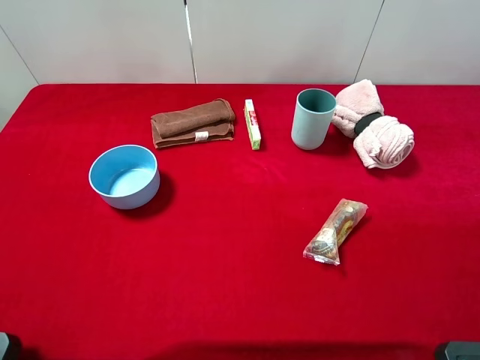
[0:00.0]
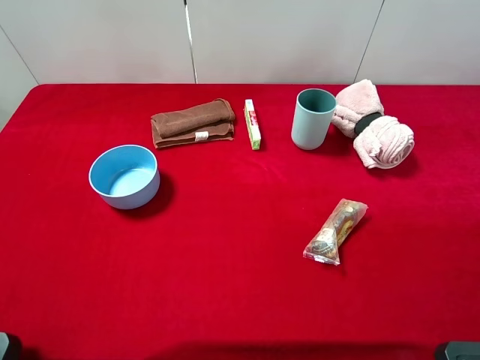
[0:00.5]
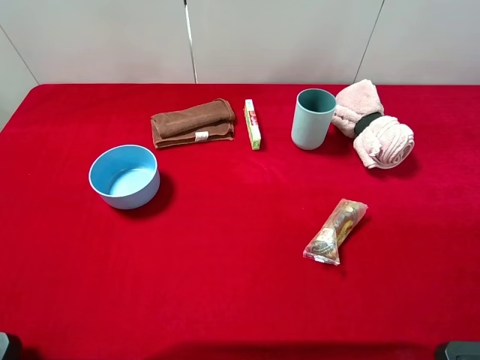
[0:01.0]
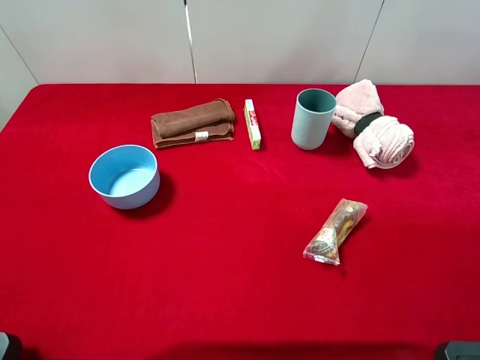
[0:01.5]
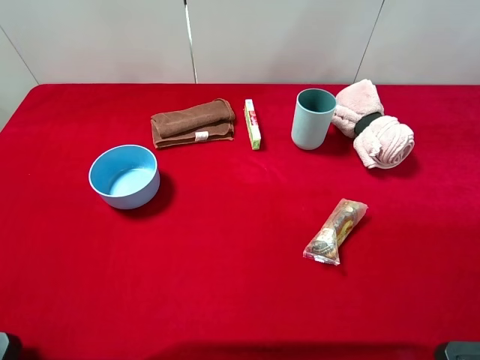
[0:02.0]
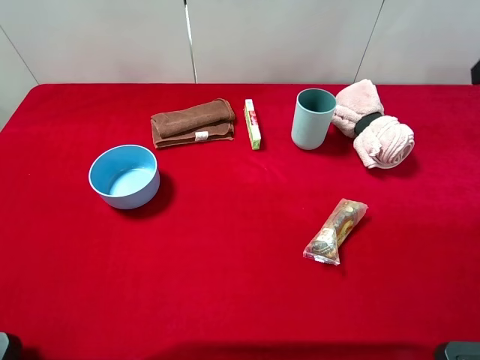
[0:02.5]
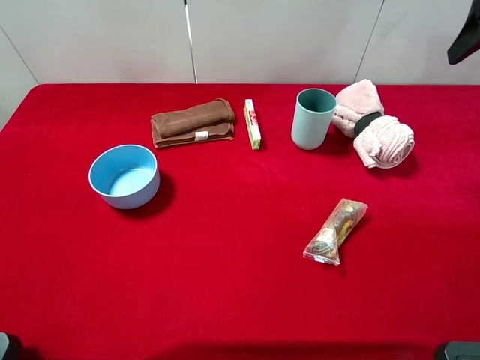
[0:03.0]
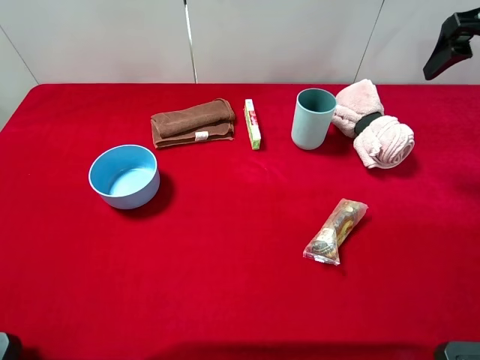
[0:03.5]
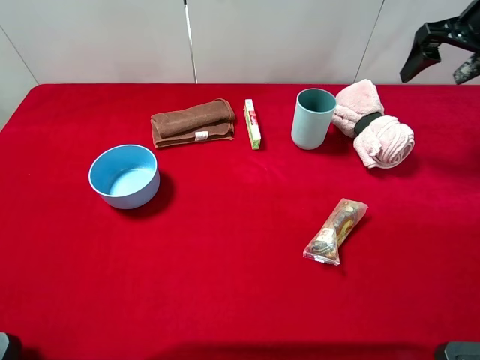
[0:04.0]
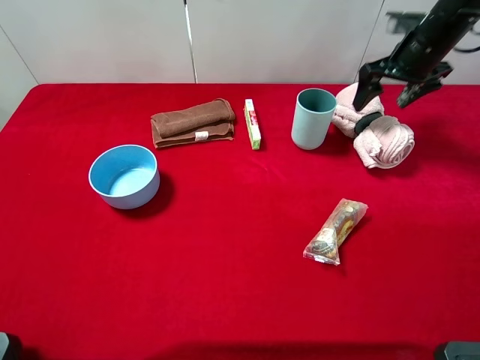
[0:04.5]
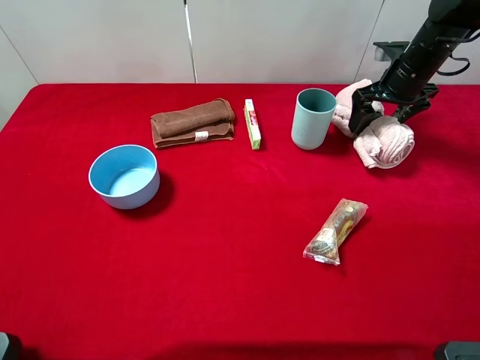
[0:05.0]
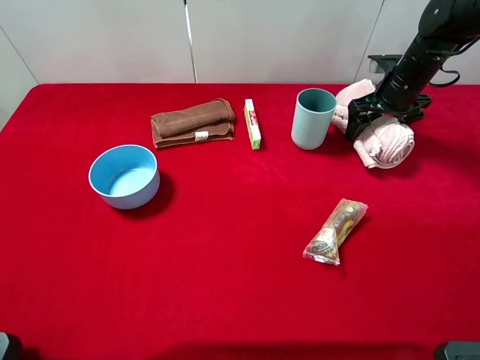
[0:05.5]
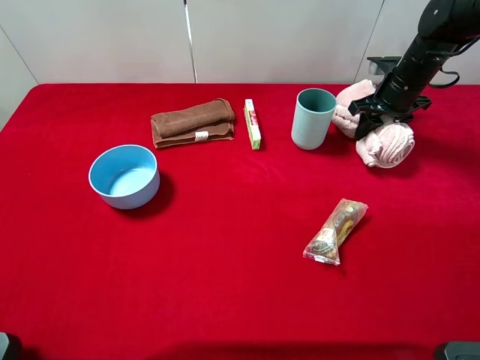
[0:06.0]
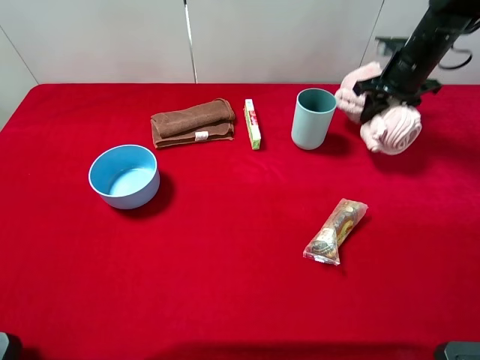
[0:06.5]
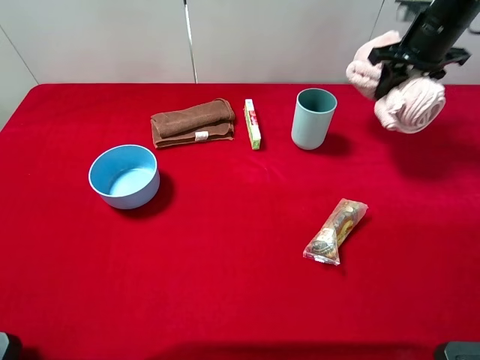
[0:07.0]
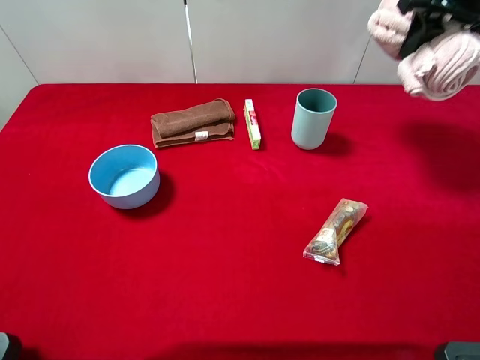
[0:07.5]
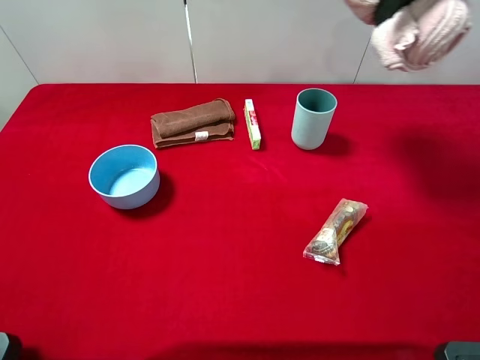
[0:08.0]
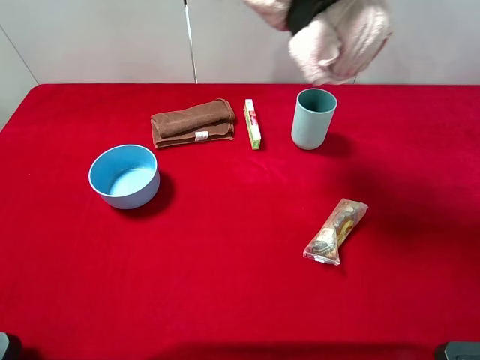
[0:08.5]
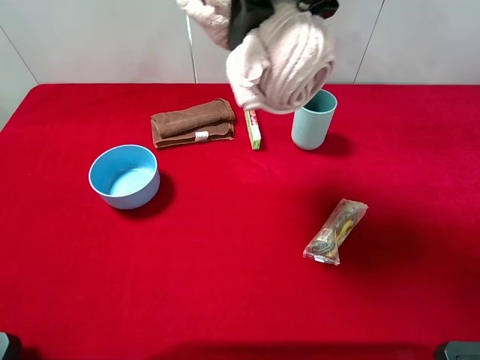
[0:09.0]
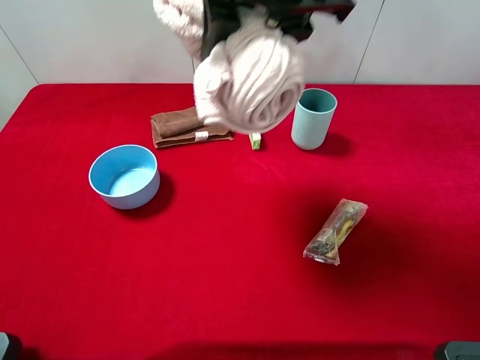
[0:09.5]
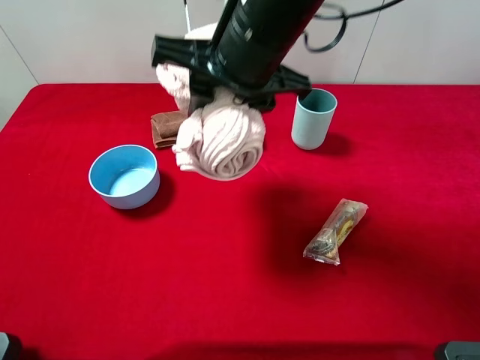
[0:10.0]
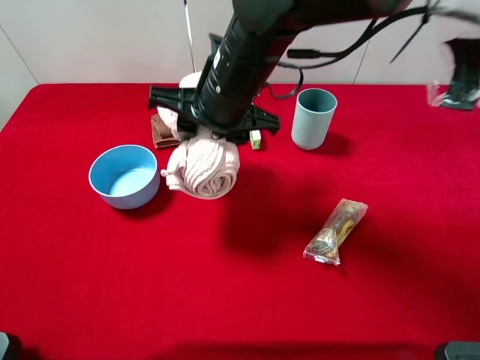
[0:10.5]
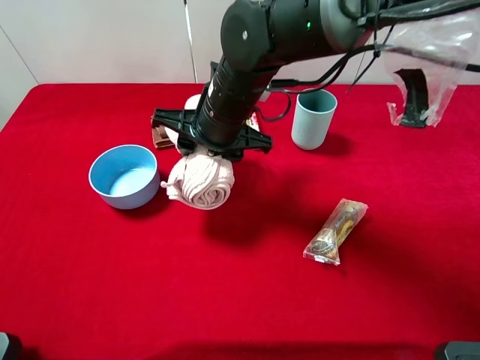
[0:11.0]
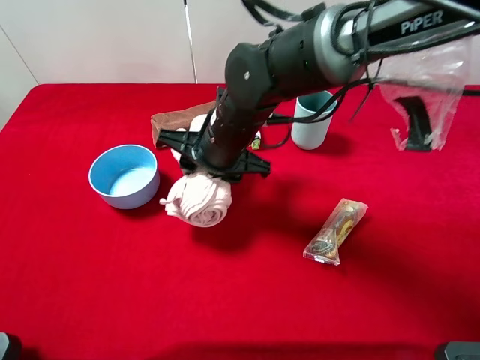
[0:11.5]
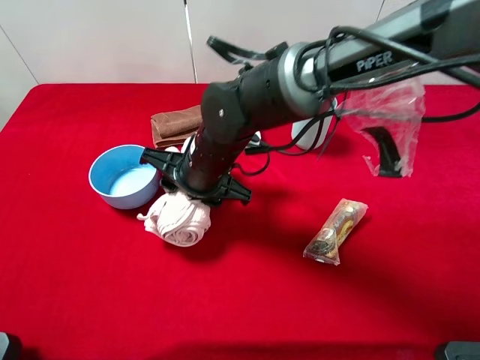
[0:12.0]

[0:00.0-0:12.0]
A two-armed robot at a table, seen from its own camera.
Task of the whole recording: the gripper move the object.
Step, 0.0 to 6.0 s: Grasp the pink towel with the right gripper.
2.0 to 4.0 s: The right gripper shifts approximately 25 cm forward.
4.0 to 6.0 s: The right gripper travels downward by some 15 cm, and closes.
6.0 to 8.0 s: The right gripper is displaced upward by about 25 cm.
8.0 to 10.0 s: The right gripper heads to the left, backward and downward, covering approximately 25 cm.
10.0 to 12.0 s: The right gripper is displaced downward by some 15 cm.

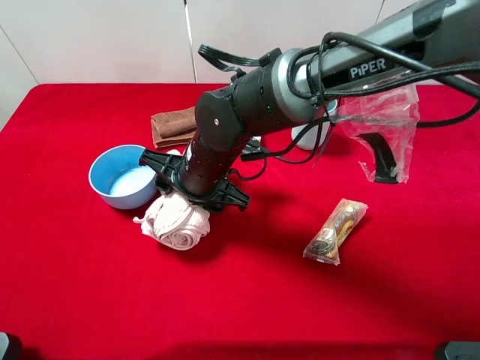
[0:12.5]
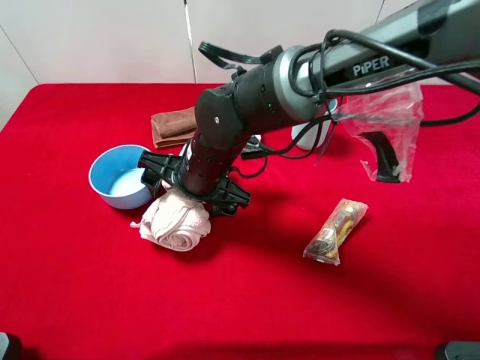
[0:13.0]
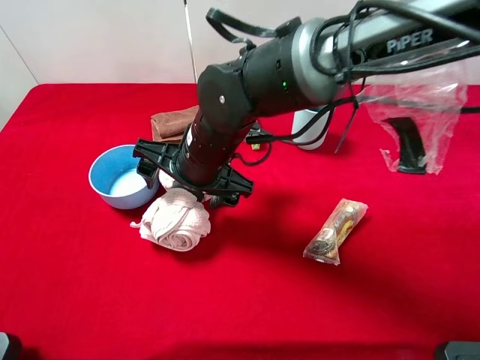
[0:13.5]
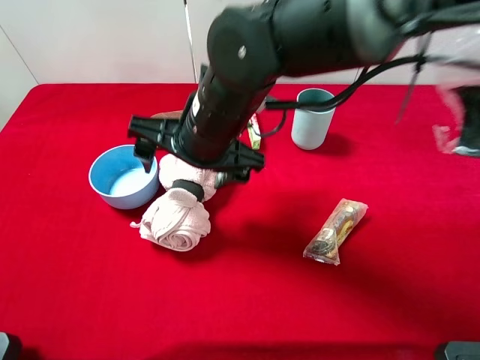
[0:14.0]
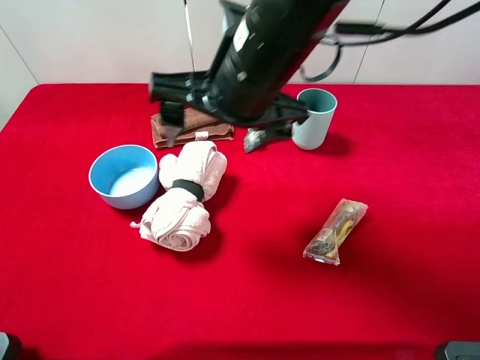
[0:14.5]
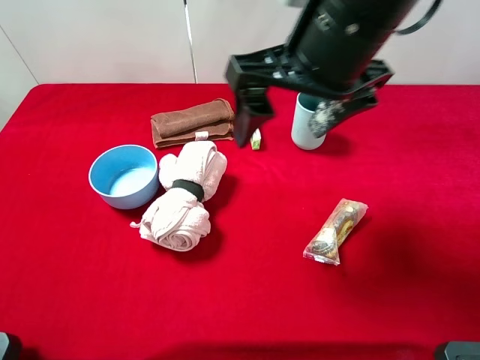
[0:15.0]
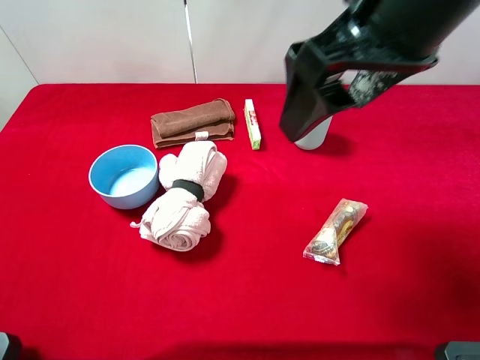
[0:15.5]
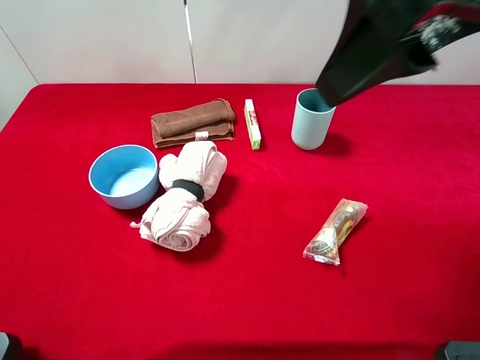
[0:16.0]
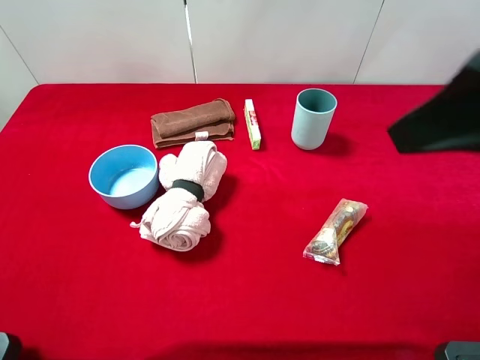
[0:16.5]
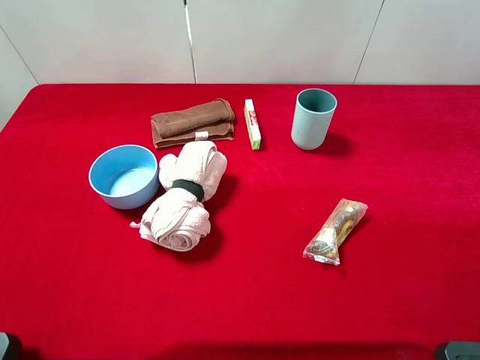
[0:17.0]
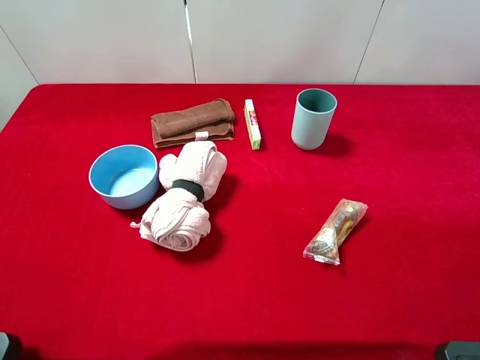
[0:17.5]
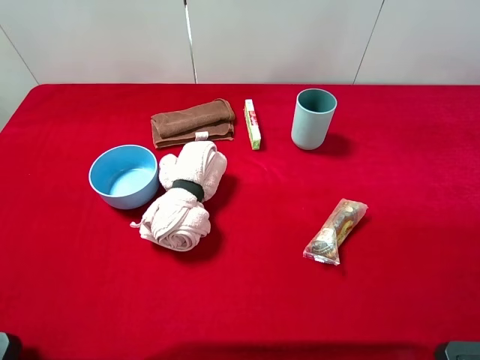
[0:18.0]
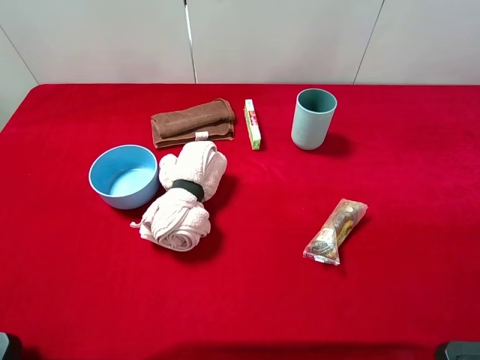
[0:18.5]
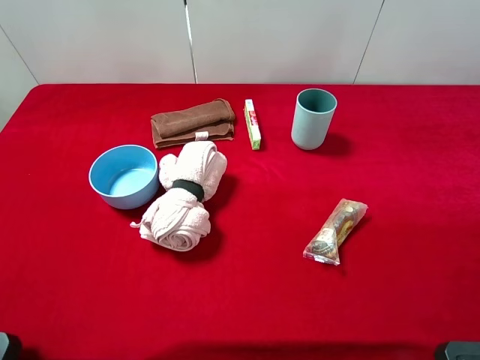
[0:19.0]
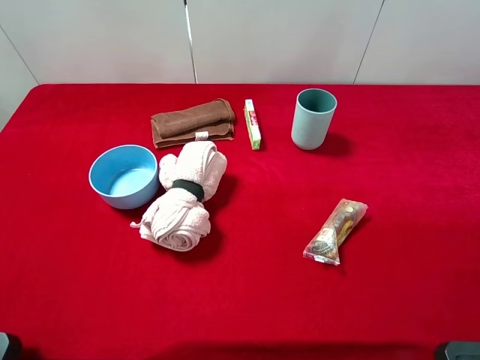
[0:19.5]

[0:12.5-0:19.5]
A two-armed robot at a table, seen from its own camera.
Task of the whole recording: the gripper move the object.
12.5 to 14.5 s: The right gripper moves upward, about 15 cm, and opens.
14.5 to 16.0 s: The right gripper heads upward, to the right and backward, covering about 20 cm.
16.0 to 17.5 s: The right gripper goes about 20 cm to the right, backward and downward.

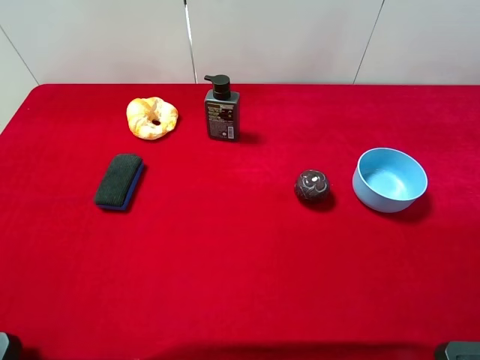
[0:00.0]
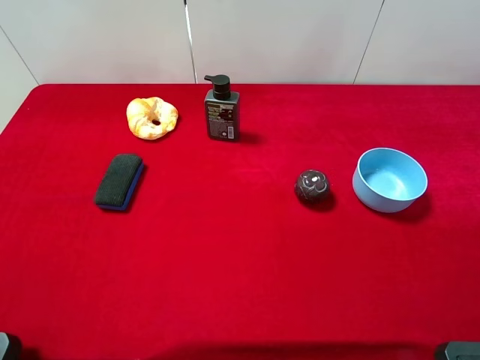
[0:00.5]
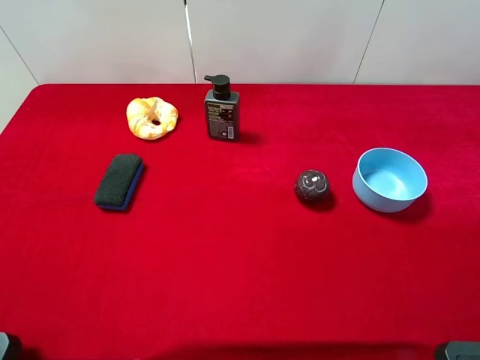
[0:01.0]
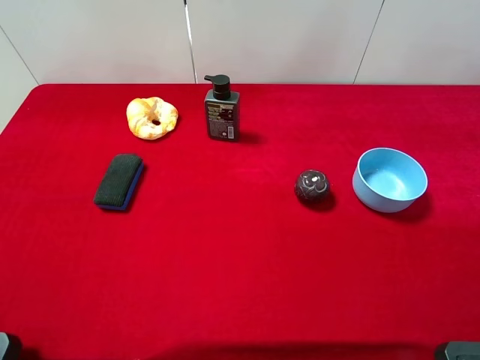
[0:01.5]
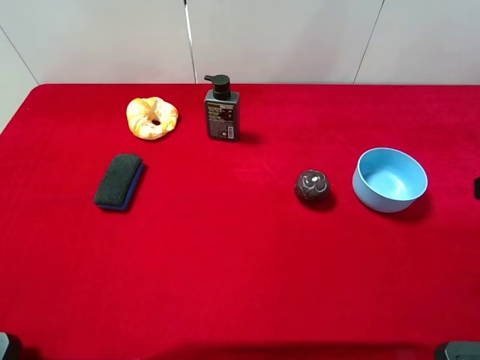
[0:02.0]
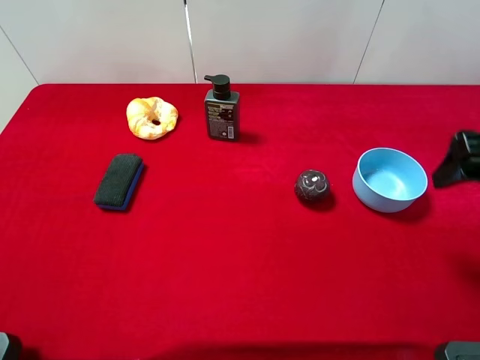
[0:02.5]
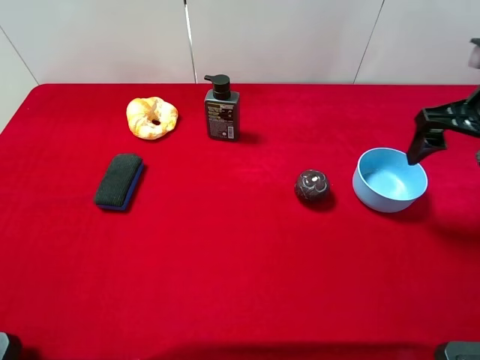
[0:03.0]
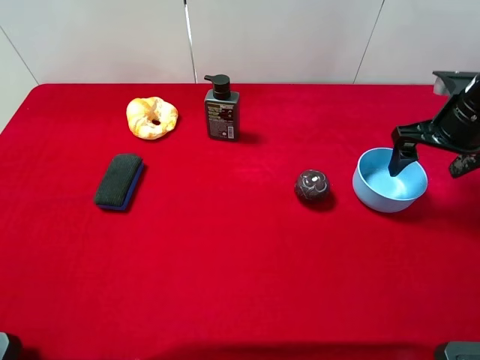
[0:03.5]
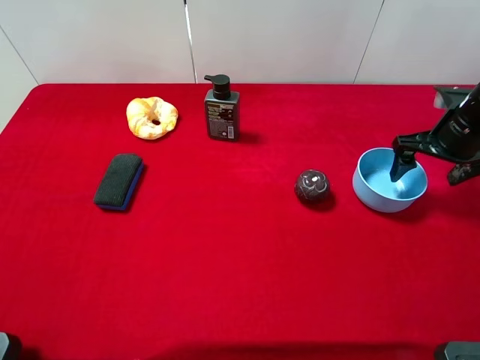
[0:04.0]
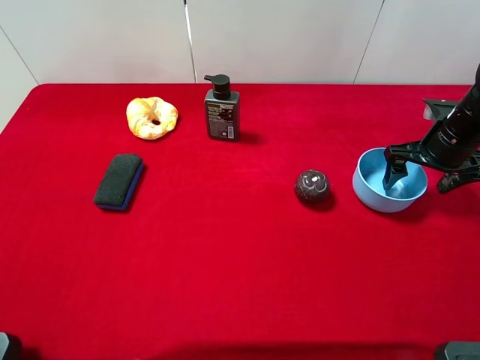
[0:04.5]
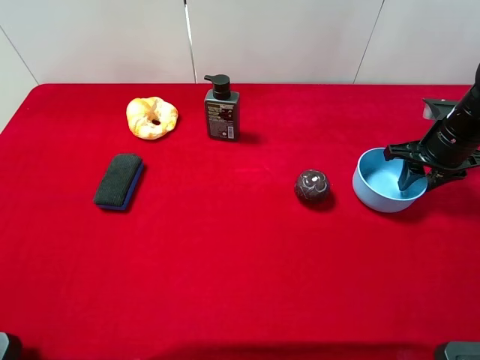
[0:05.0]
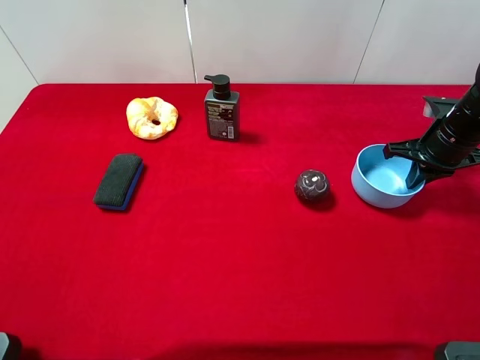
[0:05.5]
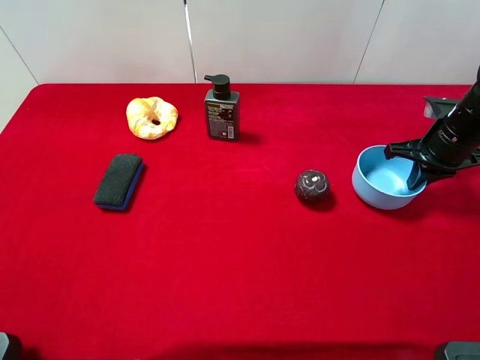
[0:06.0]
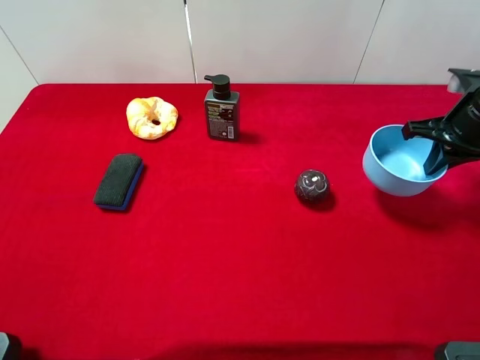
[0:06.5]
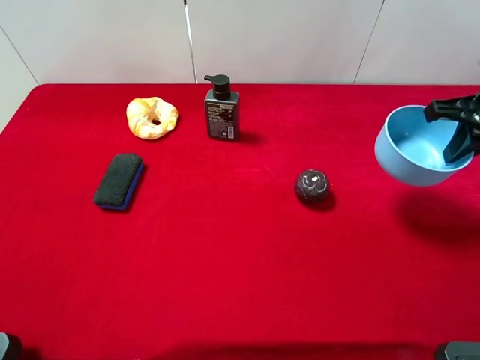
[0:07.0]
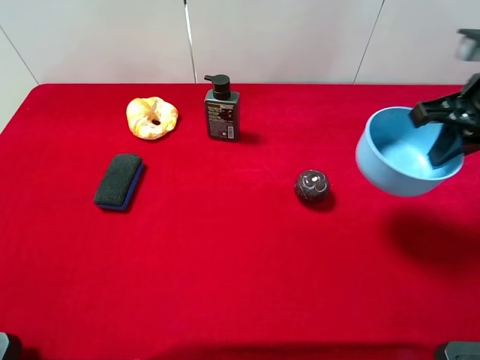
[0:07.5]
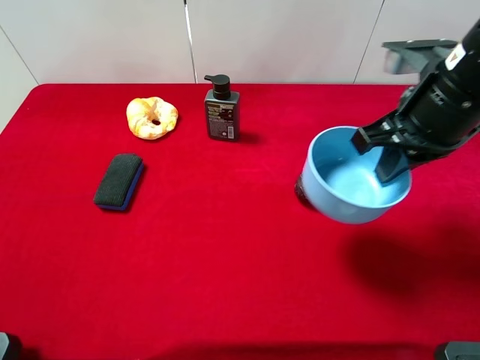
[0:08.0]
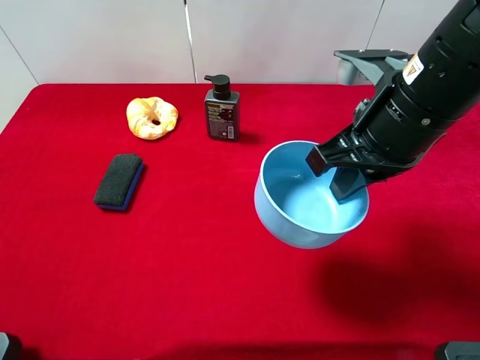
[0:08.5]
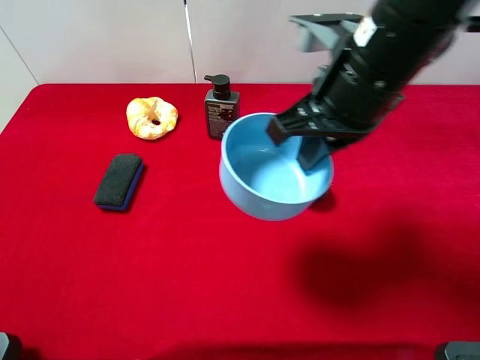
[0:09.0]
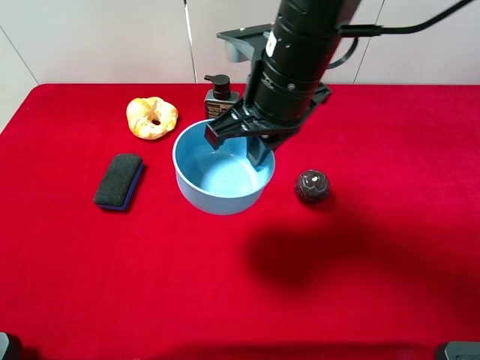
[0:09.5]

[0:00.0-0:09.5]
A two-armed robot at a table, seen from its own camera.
Task of the whole recording: the gripper move the object.
Step, 0.0 to 5.0 s: Grasp the blue bowl with the right gripper.
2.0 to 4.0 s: The right gripper heads forward and downward, covering approximately 25 cm.
4.0 to 5.5 s: The right gripper closes its fingers.
5.5 to 7.5 s: The right gripper goes roughly 15 cm upward, backward and to the left.
7.5 to 9.5 s: The right gripper travels to the left by about 20 cm.
